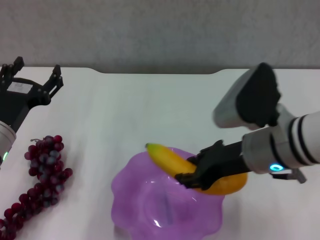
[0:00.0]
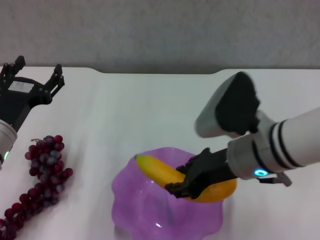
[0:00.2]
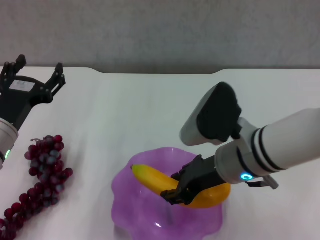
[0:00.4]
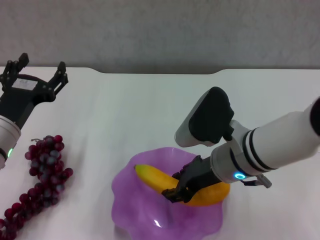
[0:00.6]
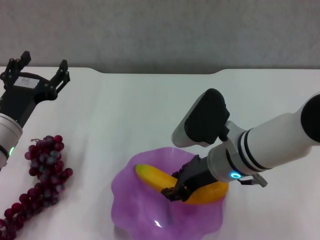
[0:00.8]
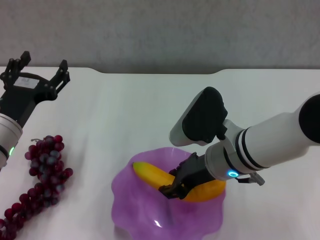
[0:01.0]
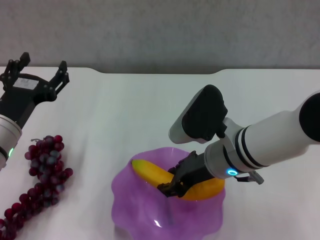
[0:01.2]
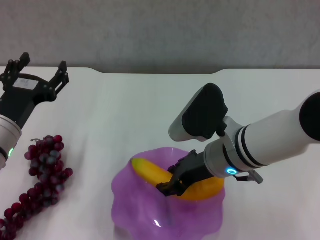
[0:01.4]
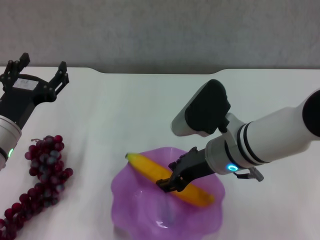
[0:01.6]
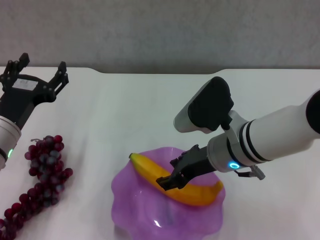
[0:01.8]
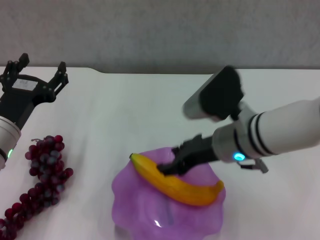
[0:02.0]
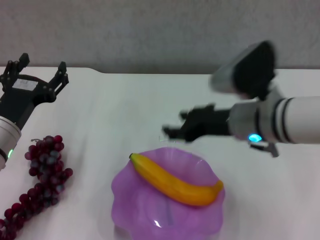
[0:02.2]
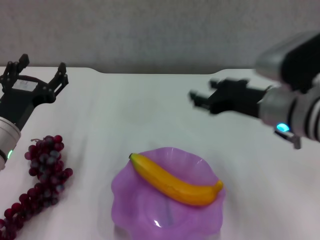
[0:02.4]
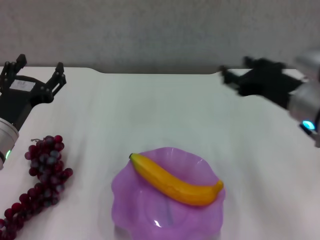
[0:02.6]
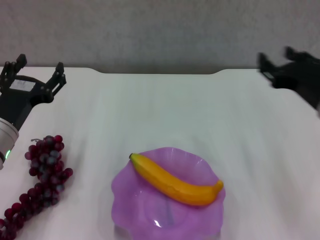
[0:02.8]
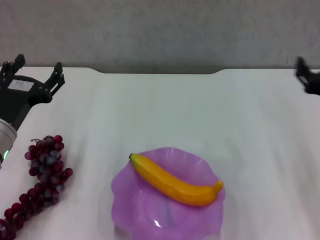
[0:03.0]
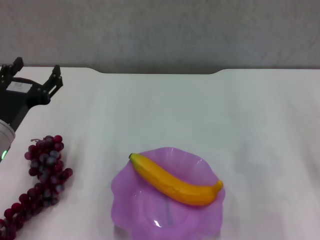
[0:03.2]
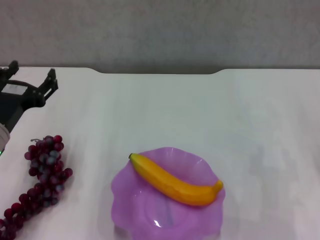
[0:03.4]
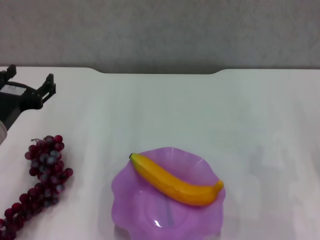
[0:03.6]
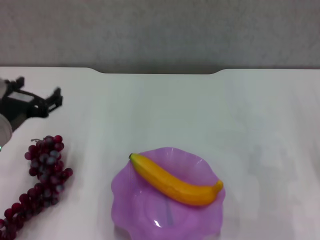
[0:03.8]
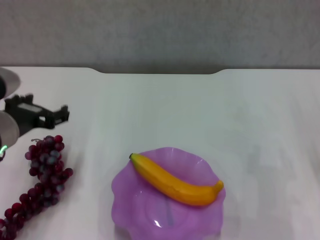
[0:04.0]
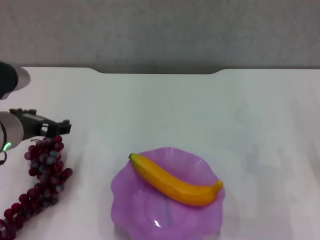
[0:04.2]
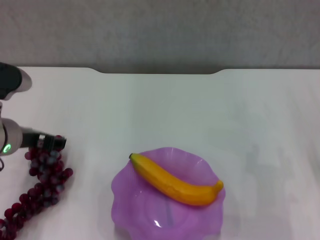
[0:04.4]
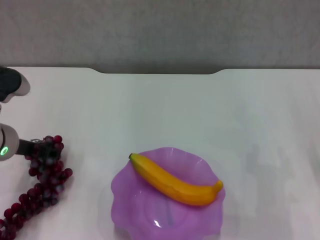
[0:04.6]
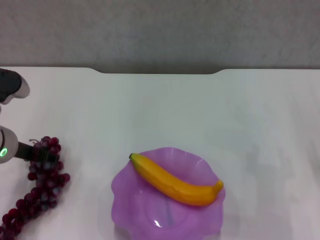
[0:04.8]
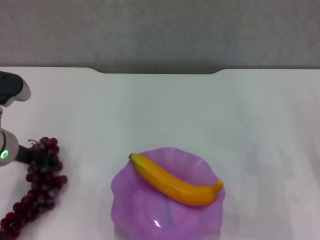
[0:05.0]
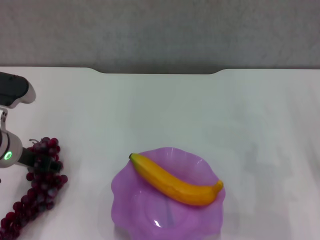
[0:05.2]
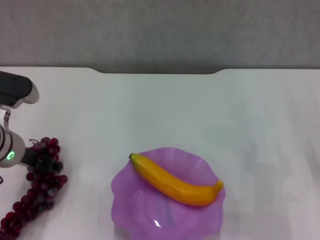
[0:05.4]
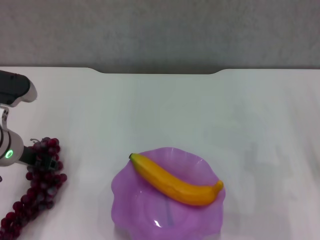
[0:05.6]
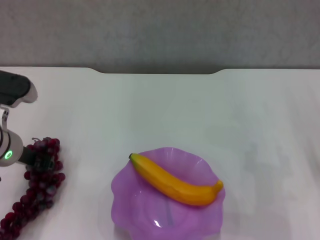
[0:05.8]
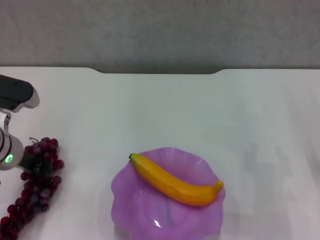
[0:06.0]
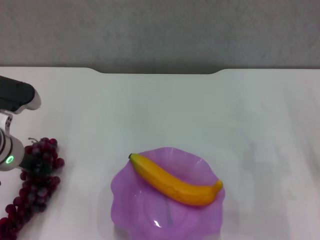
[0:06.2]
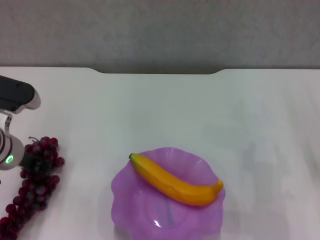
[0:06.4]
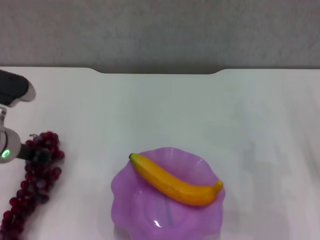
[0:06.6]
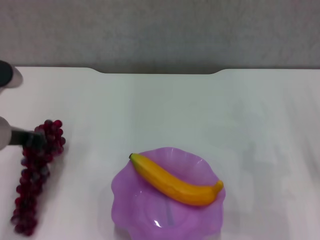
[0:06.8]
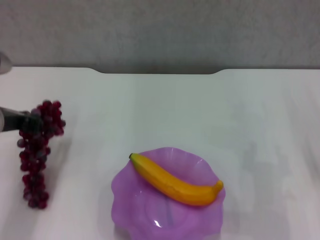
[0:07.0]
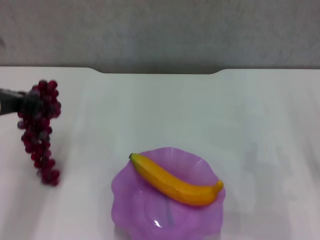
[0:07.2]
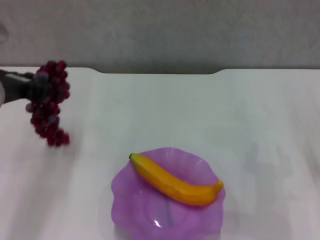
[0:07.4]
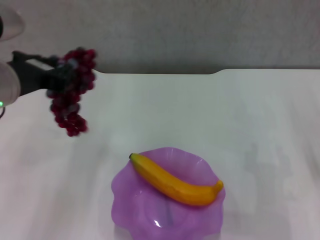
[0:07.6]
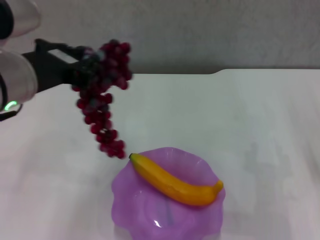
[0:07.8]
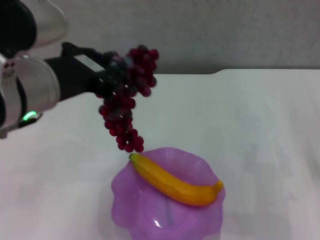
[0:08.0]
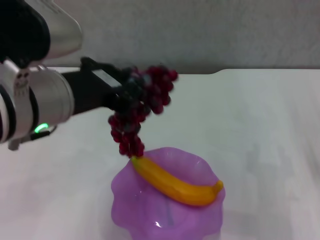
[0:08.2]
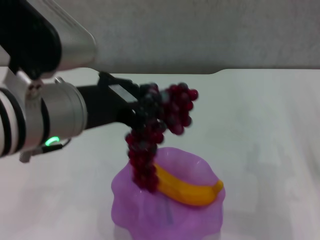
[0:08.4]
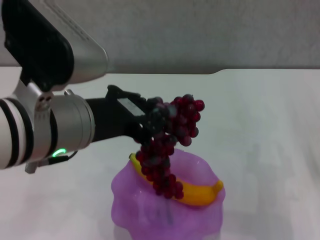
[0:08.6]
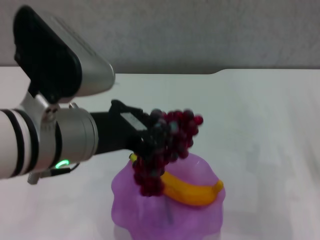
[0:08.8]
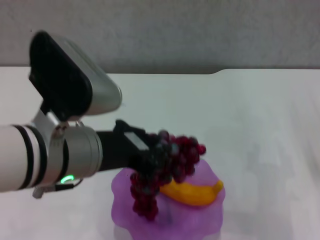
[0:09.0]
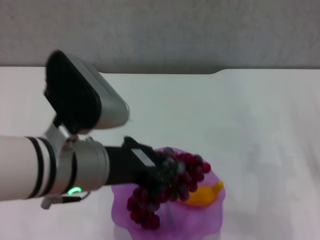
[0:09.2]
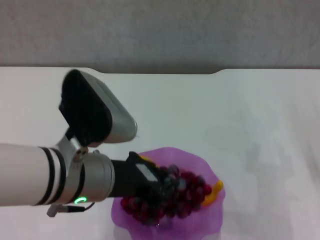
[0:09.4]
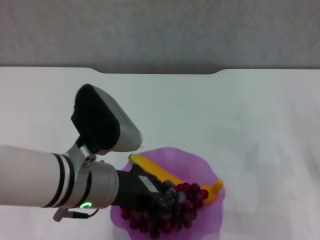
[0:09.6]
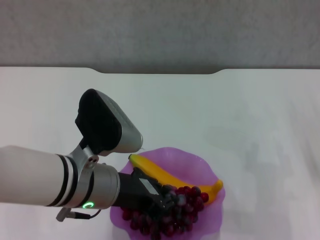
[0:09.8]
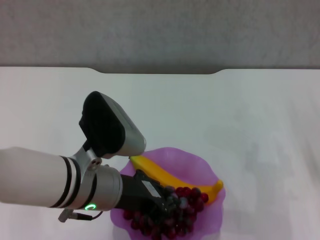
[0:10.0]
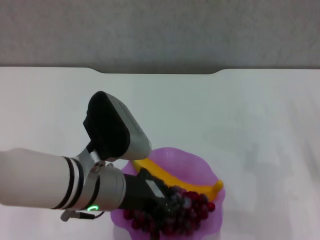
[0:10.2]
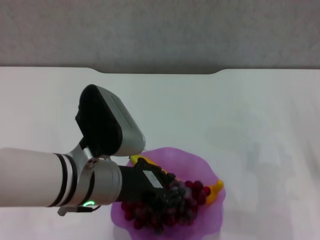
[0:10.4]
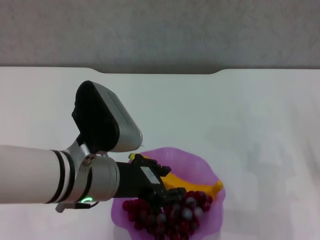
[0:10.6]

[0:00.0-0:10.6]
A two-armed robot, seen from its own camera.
Step, 0:00.0 to 0:01.8: Place the banana in the purple plate with right gripper.
Step, 0:02.0 to 0:06.2: Grasp the grape with left gripper.
0:00.0 to 0:01.6: The right gripper shifts by roughly 5 cm.
0:01.6 to 0:03.0: The right gripper goes some 15 cm to the right, and opens its fingers.
0:03.0 to 0:04.6: The right gripper changes place by approximately 5 cm.
0:04.6 to 0:06.0: The left gripper closes up.
0:06.0 to 0:07.6: The left gripper shifts roughly 10 cm upward.
0:07.6 to 0:09.0: The left gripper goes approximately 10 cm to the right and backward.
0:09.0 to 0:10.6: The left gripper travels downward by about 5 cm.

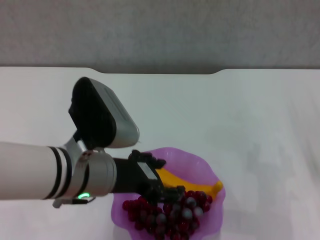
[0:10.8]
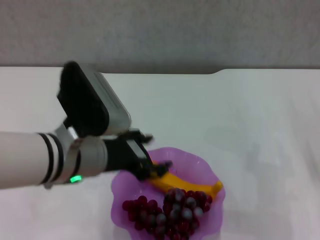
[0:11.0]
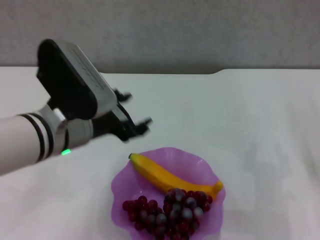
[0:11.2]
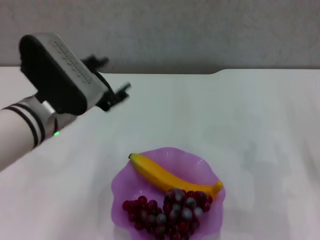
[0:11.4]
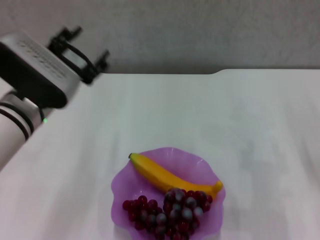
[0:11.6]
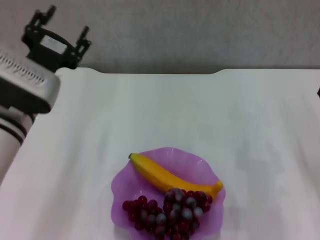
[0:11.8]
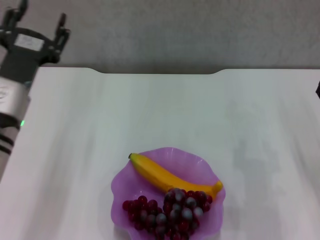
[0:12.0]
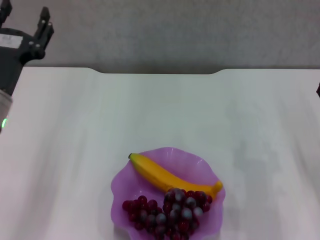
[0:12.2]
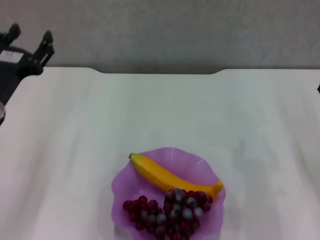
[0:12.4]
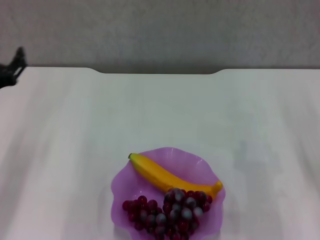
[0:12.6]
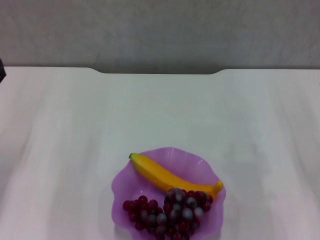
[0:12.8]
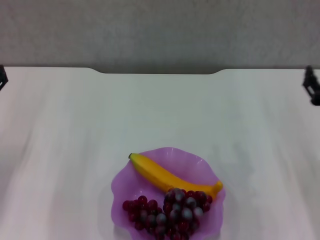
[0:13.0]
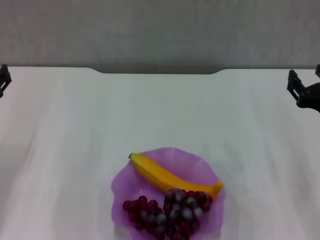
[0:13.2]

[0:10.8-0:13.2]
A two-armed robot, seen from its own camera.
0:10.8 to 0:12.0: The left gripper moves to the left and forward, roughly 10 cm.
0:12.0 to 0:13.2: The left gripper travels to the left by some 10 cm.
